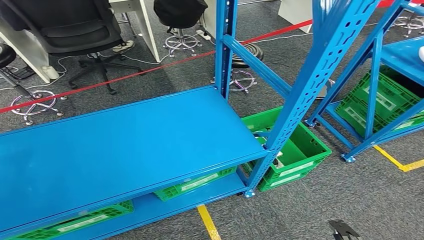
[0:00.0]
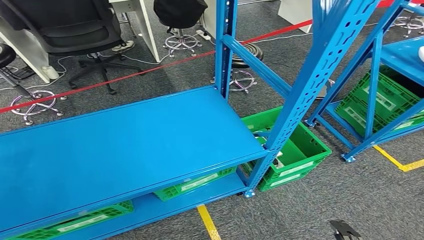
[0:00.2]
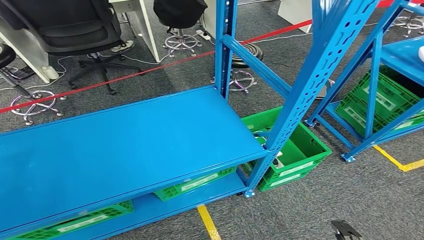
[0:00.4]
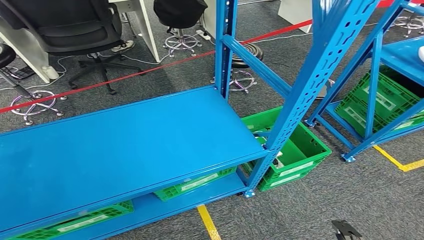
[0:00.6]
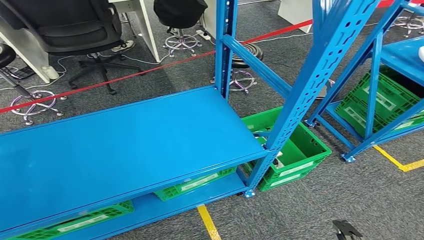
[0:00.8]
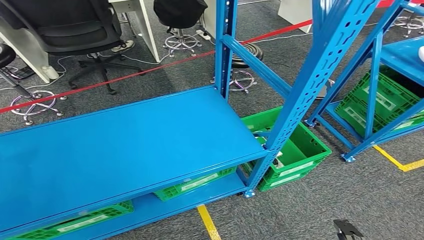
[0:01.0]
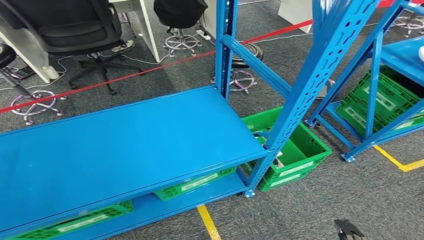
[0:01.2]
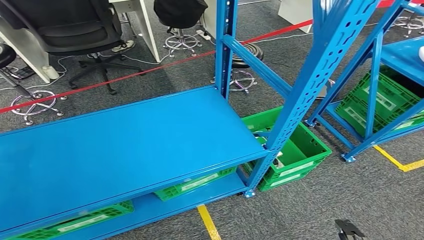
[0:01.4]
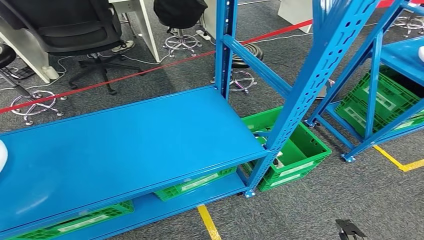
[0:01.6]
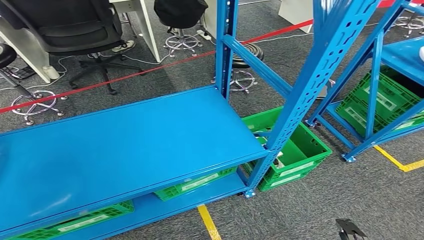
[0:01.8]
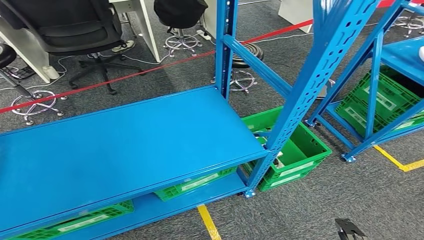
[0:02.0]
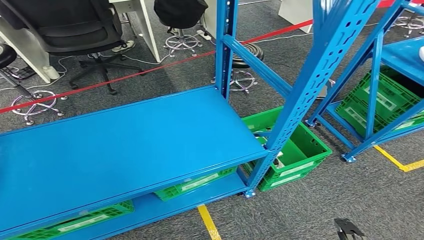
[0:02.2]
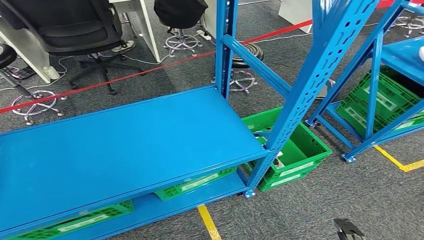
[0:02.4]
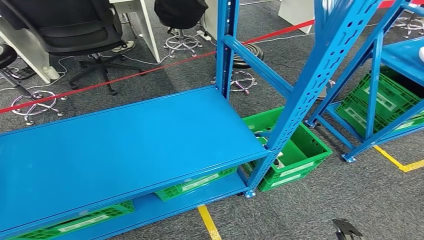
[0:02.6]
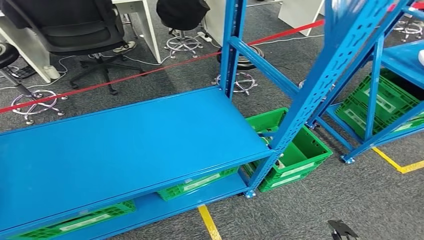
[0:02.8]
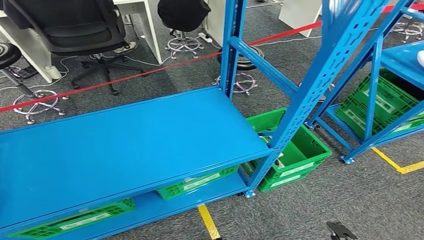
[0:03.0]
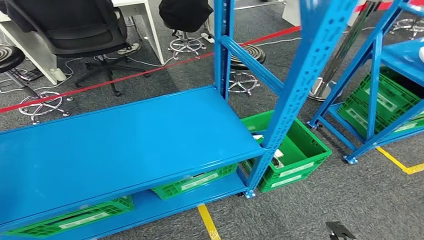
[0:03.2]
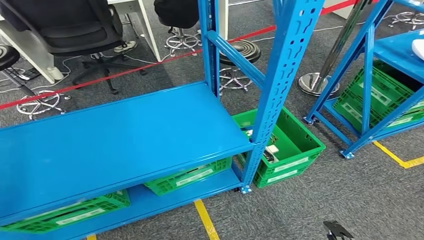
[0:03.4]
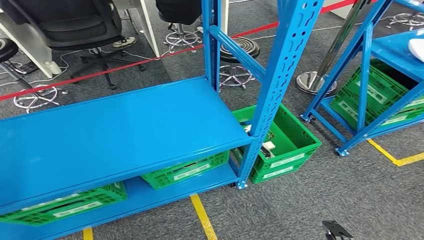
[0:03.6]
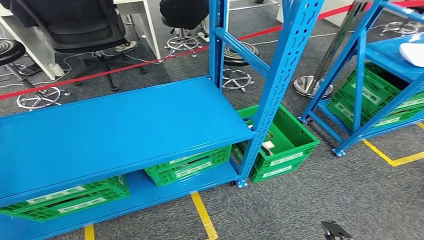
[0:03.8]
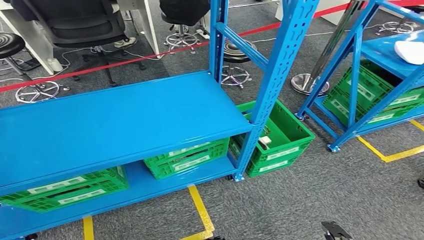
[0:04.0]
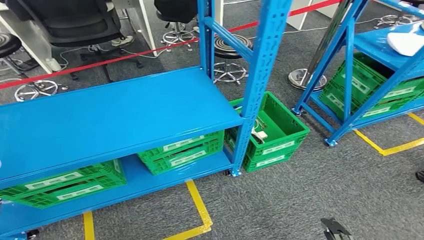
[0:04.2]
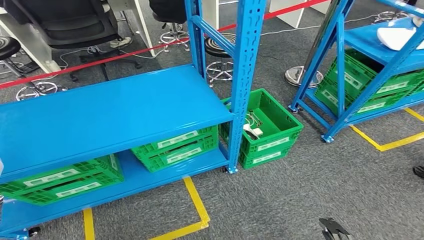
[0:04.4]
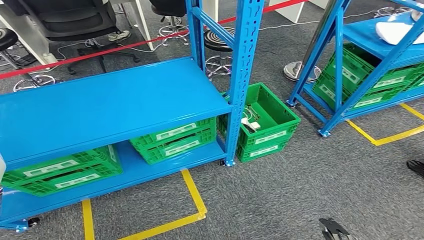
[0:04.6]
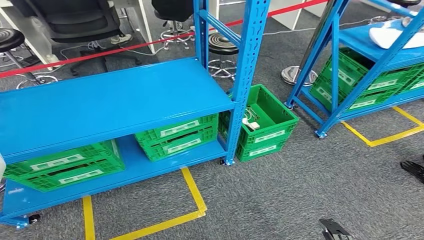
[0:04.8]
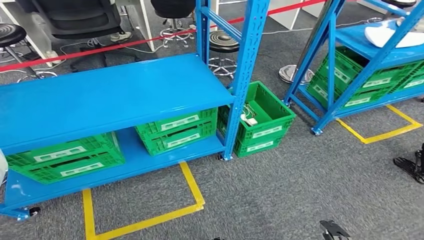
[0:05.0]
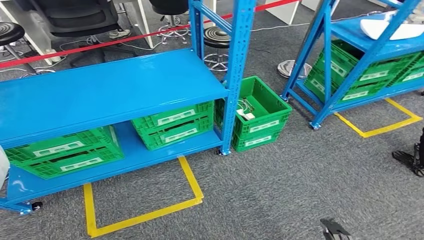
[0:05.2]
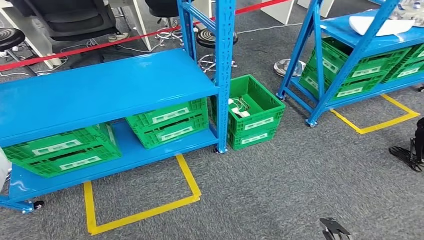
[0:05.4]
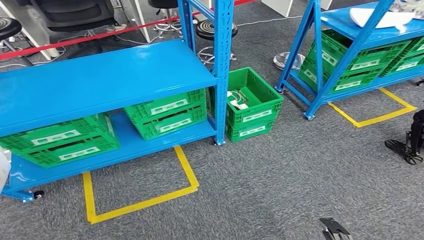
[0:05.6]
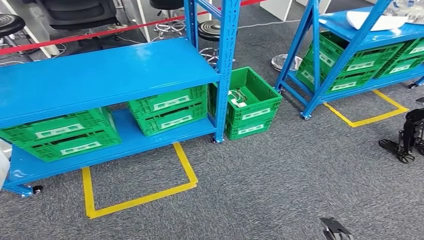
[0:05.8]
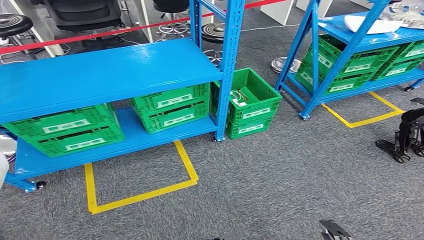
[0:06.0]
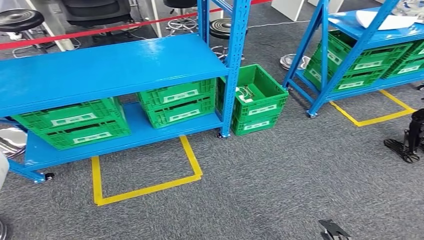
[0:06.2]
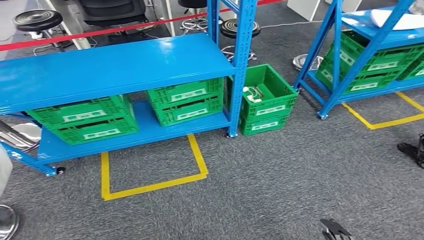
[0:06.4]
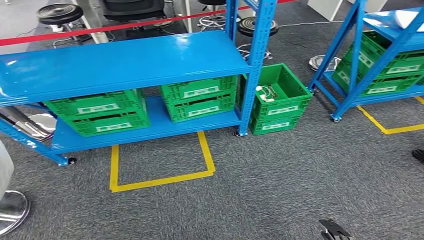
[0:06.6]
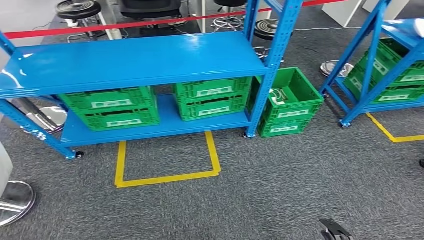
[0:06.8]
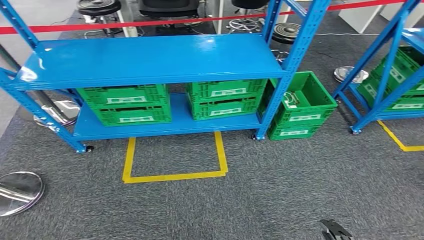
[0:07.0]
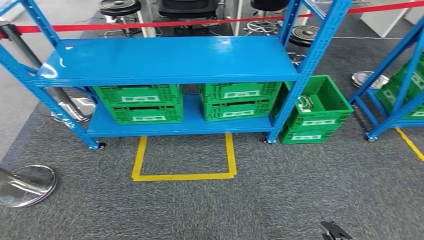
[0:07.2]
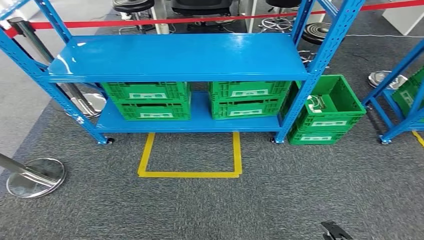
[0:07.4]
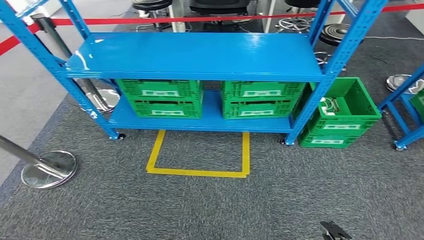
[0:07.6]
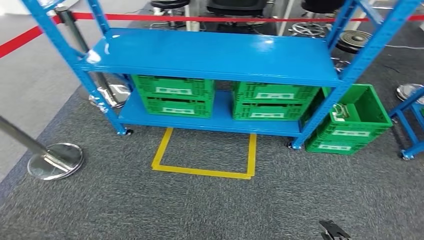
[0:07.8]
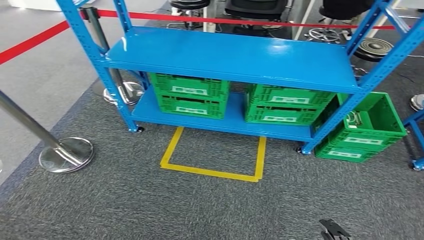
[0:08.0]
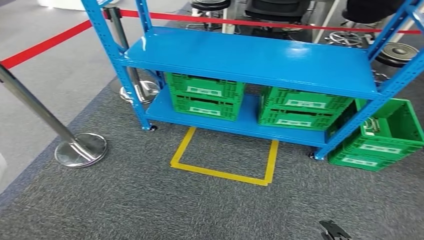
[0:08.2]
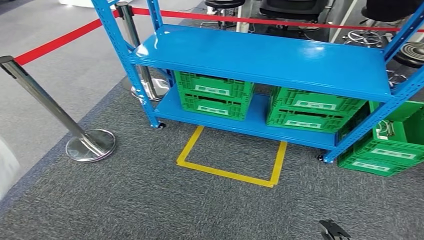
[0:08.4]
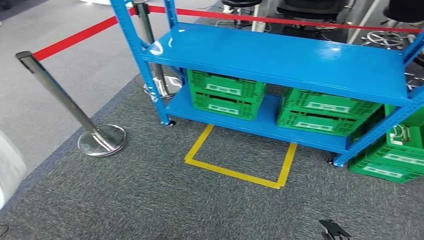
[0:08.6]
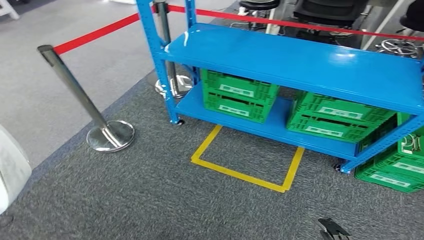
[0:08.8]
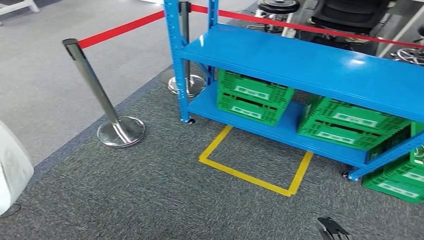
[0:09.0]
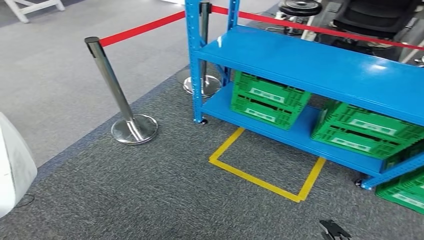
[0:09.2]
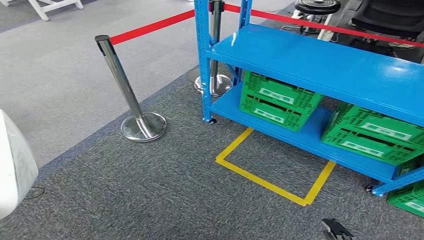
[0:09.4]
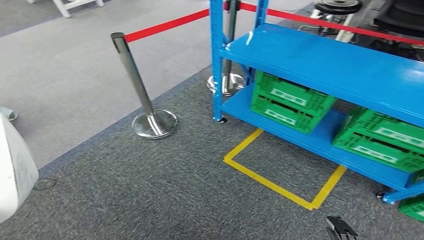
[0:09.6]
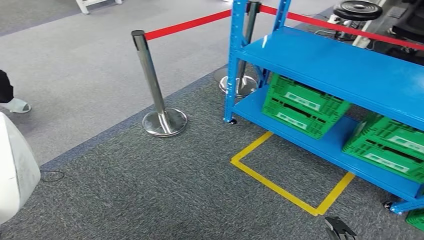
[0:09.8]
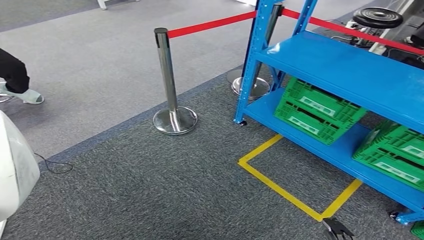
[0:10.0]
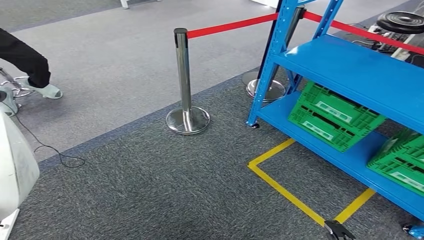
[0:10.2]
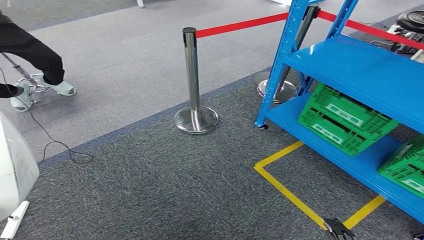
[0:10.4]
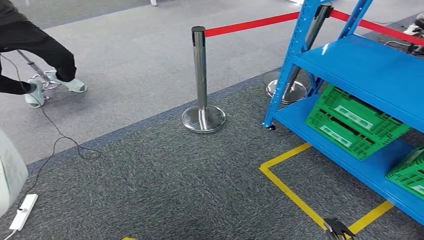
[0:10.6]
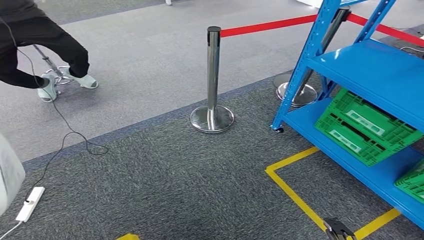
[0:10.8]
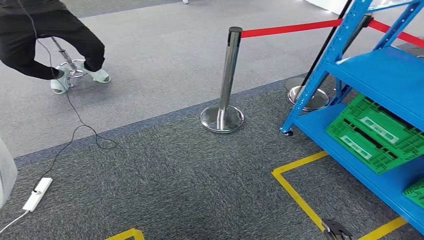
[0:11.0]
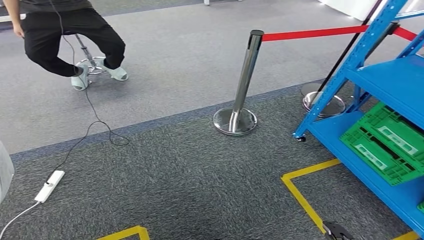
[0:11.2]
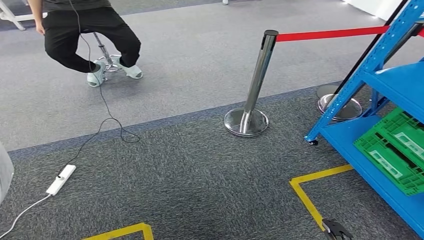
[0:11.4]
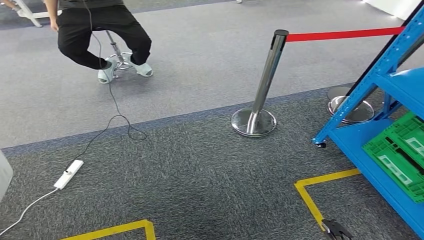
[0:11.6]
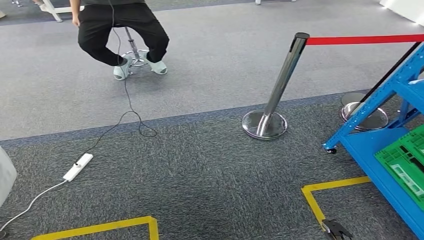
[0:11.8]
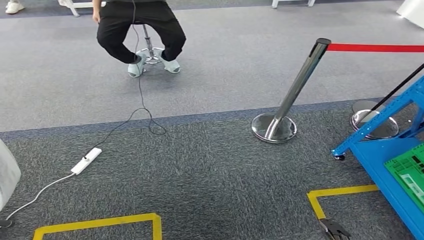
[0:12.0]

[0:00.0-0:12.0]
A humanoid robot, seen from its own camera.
Step, 0:00.0 to 0:03.0: Pick up the small component from the shelf.
0:01.6 to 0:03.0: The left hand goes roughly 15 cm to the right and upward.

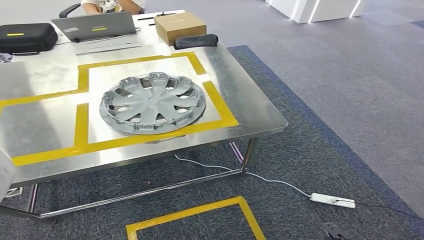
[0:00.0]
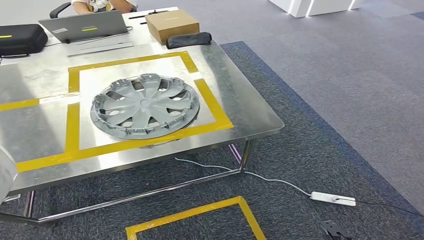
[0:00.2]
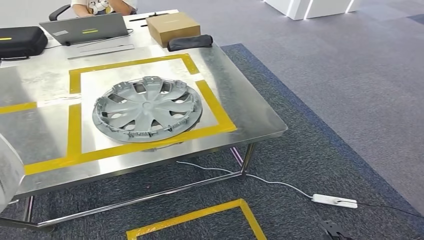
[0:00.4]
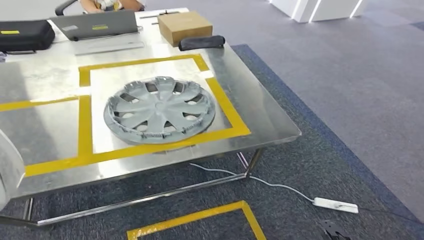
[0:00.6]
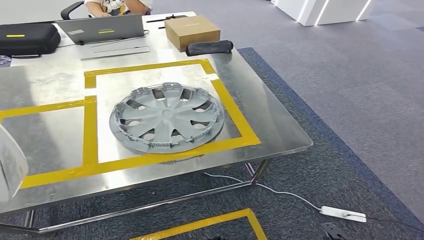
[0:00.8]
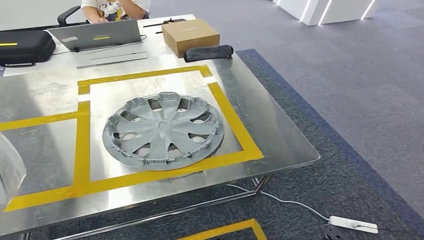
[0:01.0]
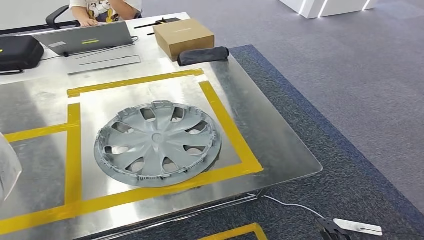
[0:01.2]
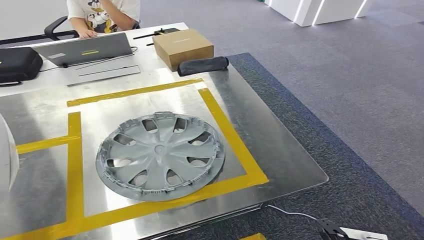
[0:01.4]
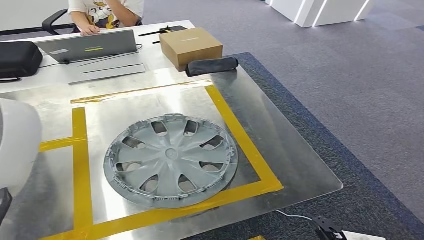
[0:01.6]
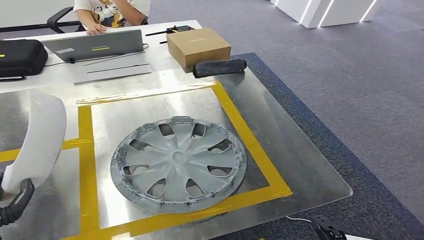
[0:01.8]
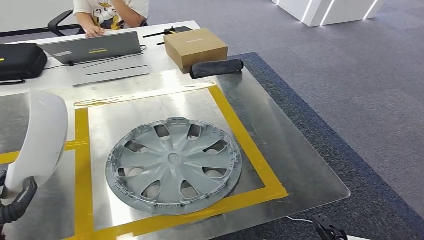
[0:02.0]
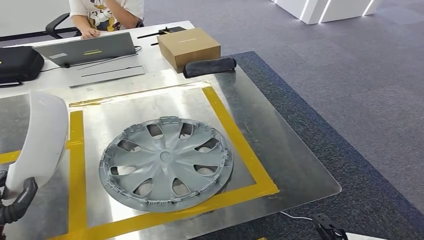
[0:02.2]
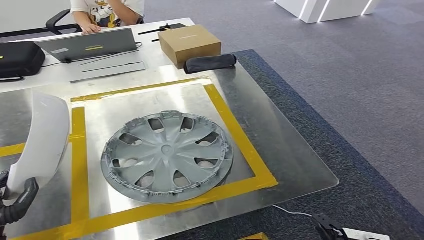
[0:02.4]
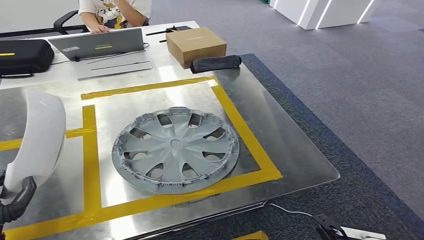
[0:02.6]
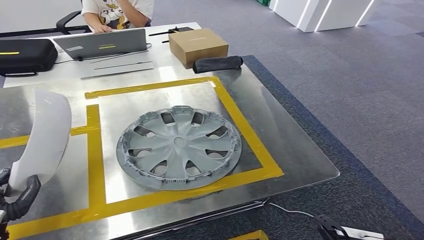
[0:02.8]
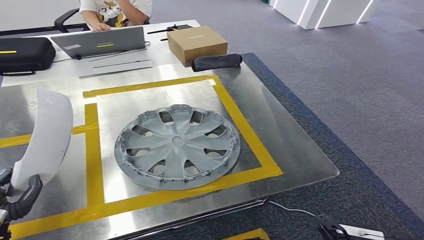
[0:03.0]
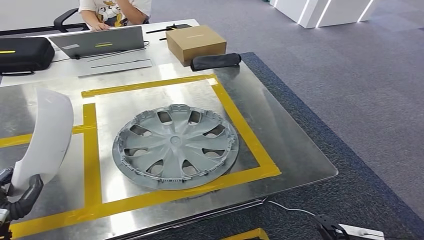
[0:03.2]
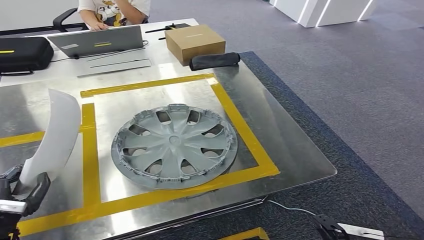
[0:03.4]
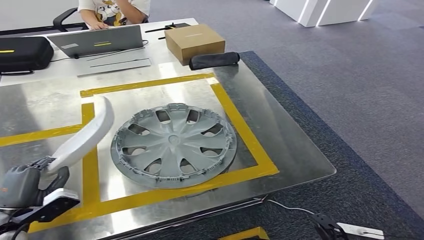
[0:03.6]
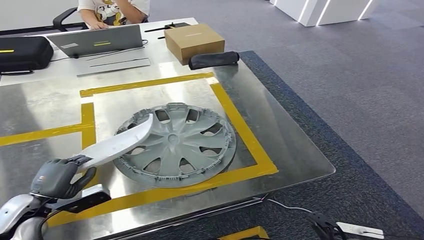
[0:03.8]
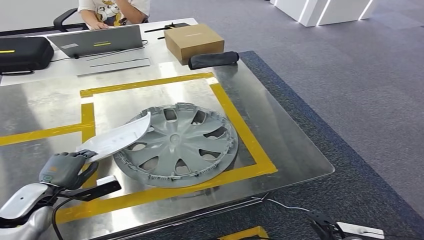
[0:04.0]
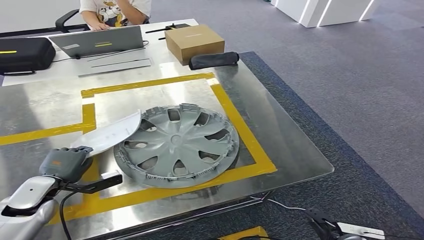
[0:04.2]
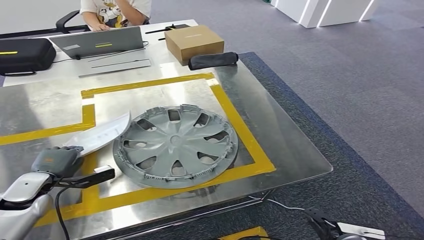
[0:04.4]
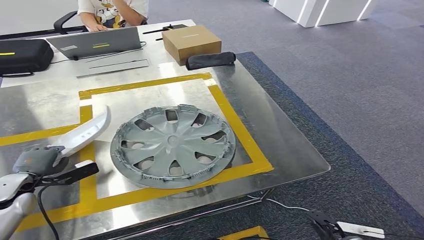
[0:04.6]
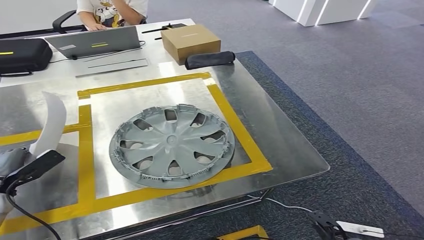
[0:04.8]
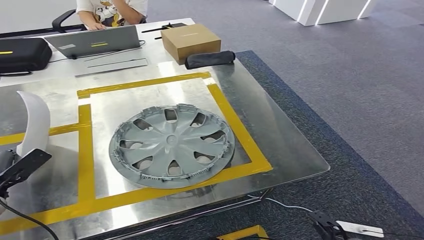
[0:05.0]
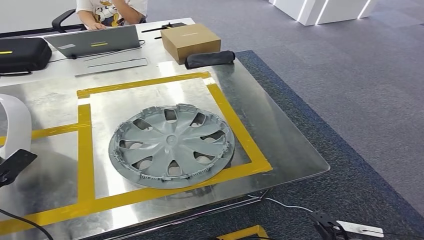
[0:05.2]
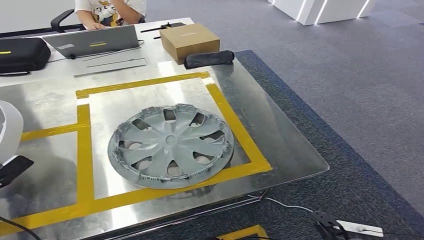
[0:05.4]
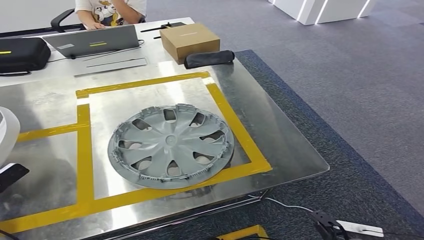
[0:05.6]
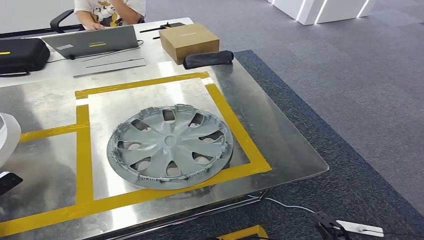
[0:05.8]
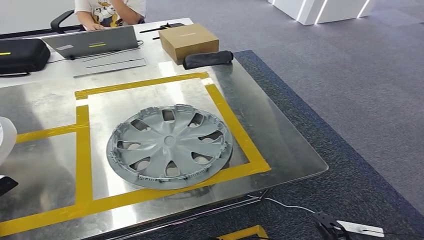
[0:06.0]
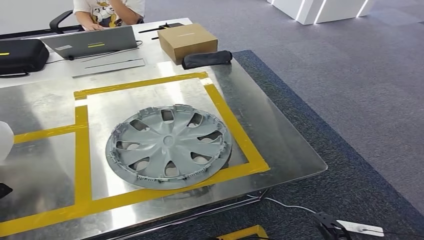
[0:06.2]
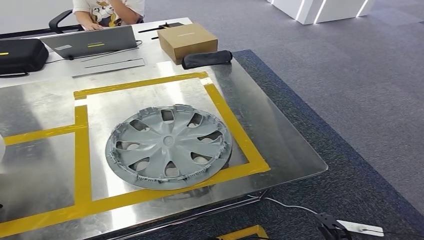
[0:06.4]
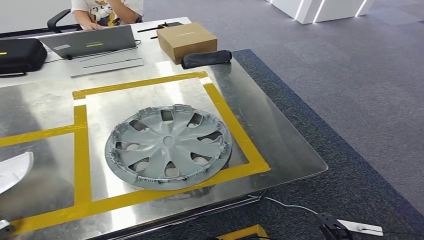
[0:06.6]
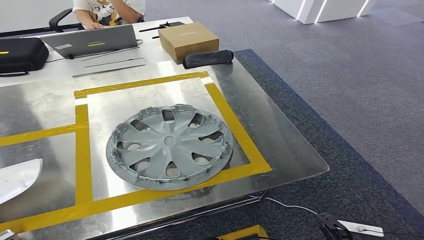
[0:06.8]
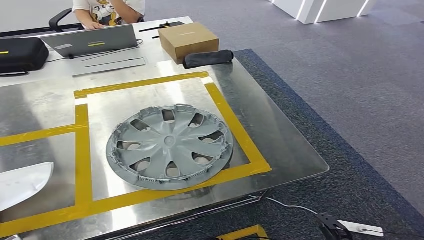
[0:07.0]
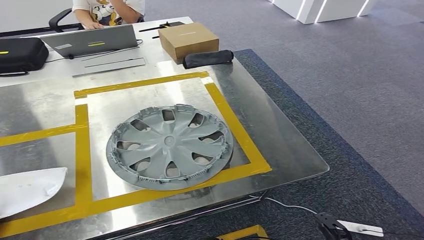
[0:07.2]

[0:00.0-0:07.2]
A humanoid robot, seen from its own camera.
0:05.8 to 0:07.2: The left hand goes about 15 cm backward.
